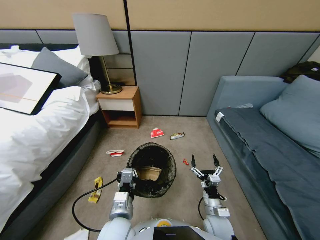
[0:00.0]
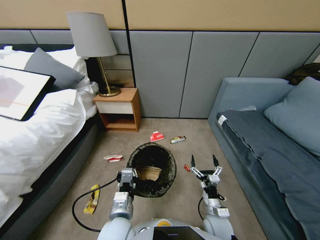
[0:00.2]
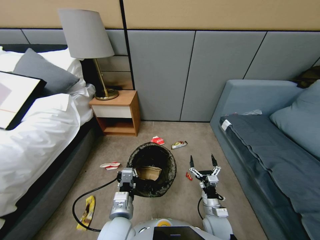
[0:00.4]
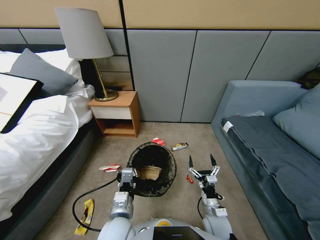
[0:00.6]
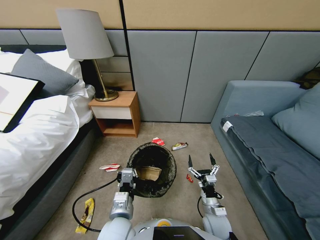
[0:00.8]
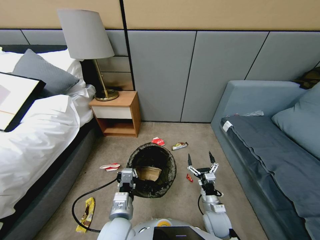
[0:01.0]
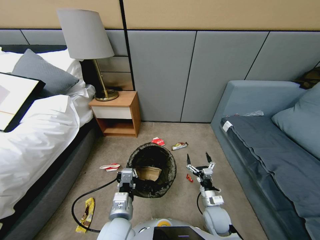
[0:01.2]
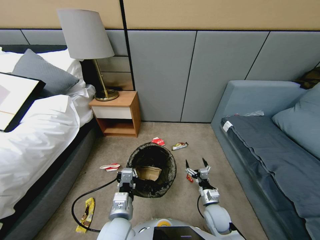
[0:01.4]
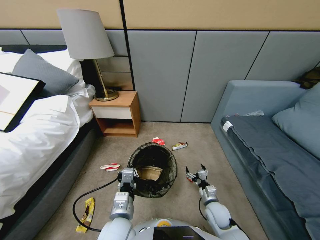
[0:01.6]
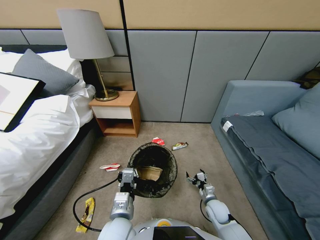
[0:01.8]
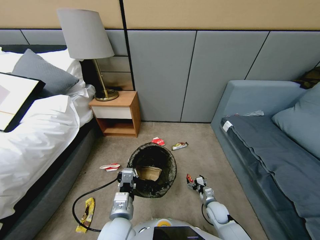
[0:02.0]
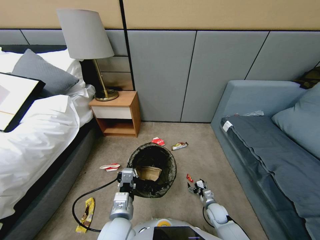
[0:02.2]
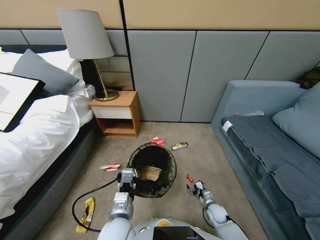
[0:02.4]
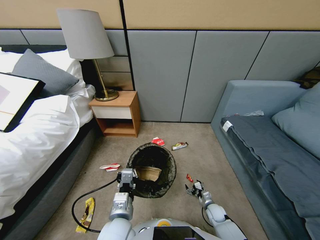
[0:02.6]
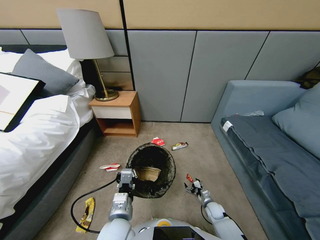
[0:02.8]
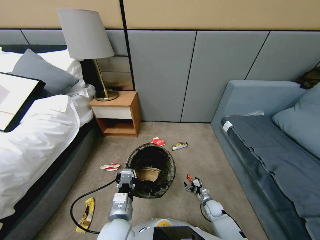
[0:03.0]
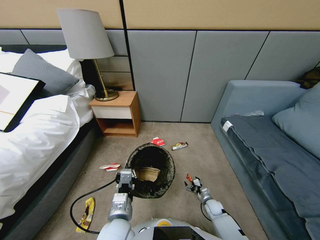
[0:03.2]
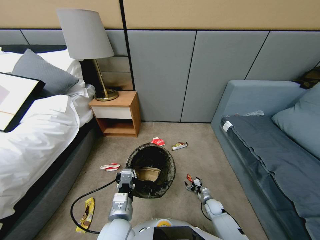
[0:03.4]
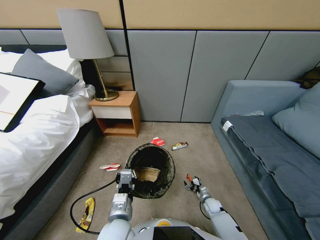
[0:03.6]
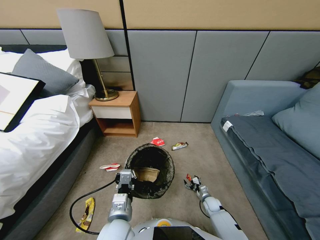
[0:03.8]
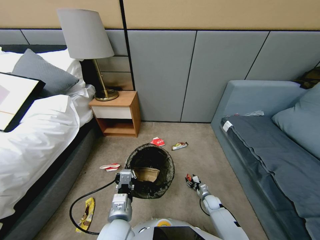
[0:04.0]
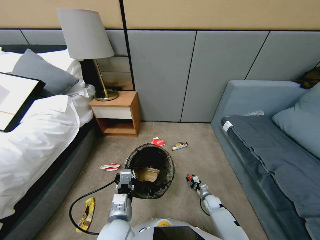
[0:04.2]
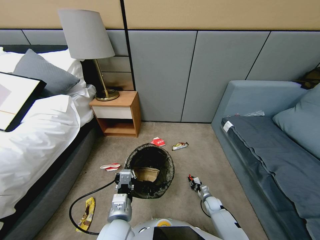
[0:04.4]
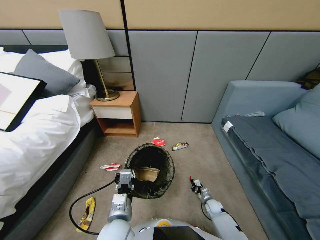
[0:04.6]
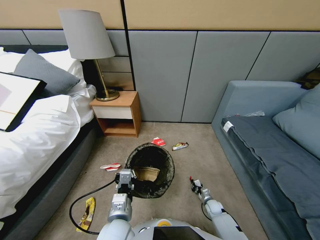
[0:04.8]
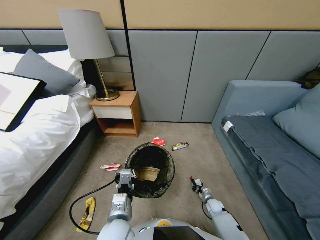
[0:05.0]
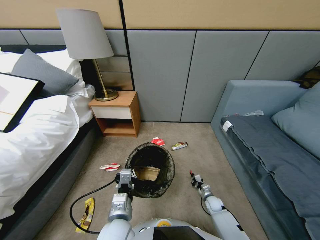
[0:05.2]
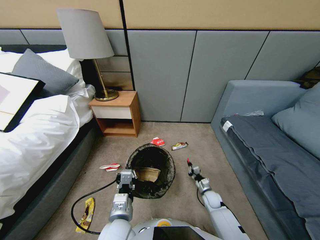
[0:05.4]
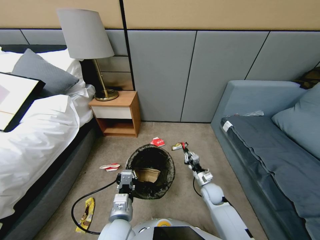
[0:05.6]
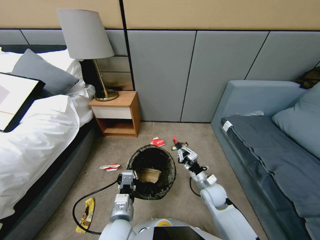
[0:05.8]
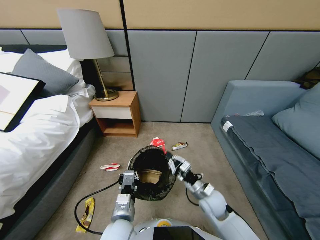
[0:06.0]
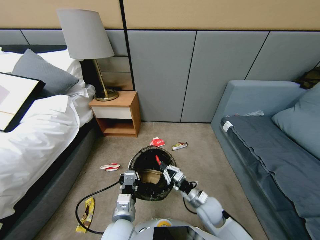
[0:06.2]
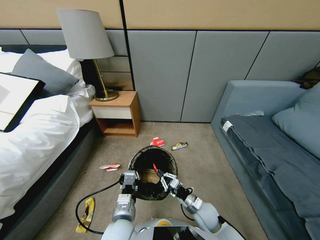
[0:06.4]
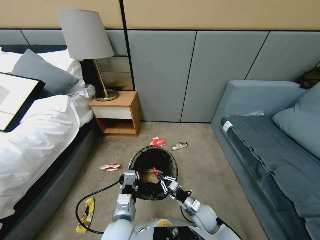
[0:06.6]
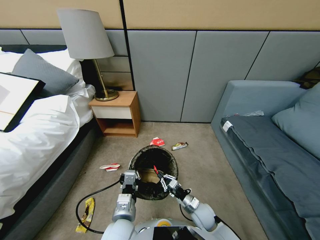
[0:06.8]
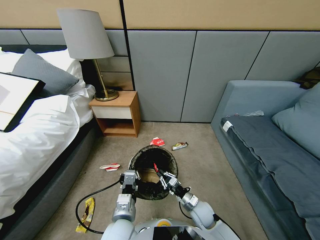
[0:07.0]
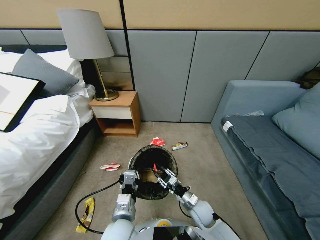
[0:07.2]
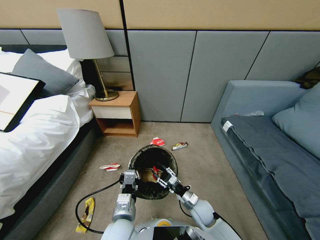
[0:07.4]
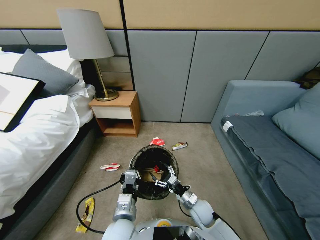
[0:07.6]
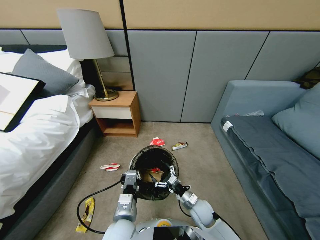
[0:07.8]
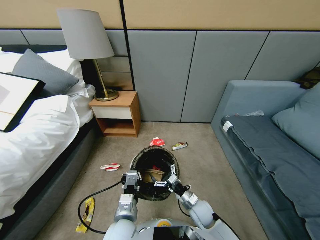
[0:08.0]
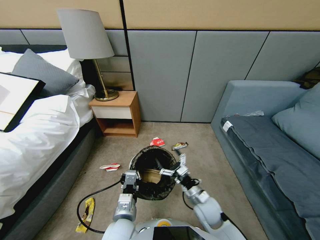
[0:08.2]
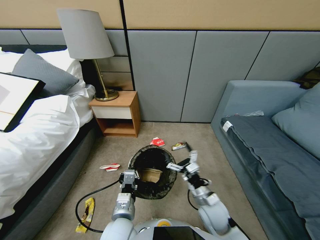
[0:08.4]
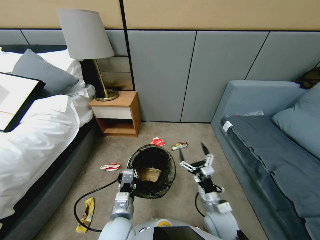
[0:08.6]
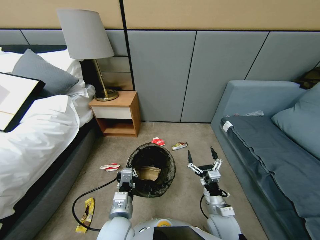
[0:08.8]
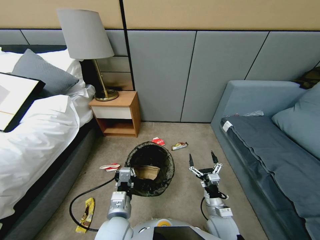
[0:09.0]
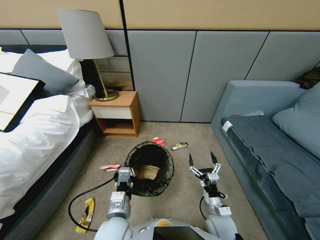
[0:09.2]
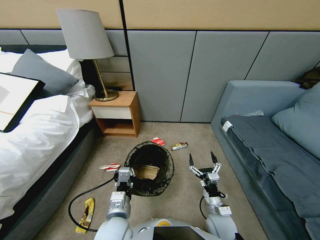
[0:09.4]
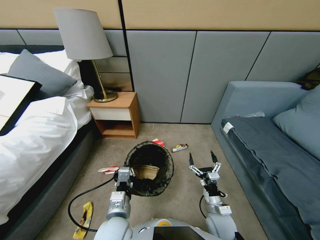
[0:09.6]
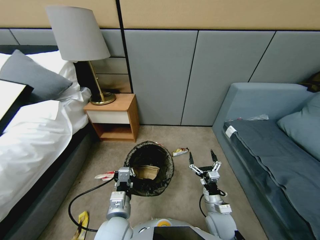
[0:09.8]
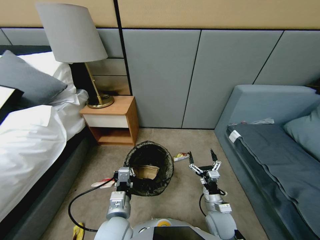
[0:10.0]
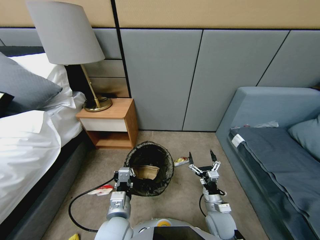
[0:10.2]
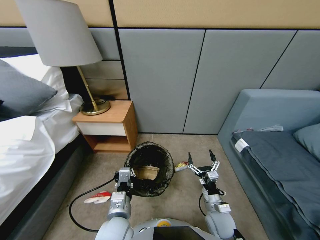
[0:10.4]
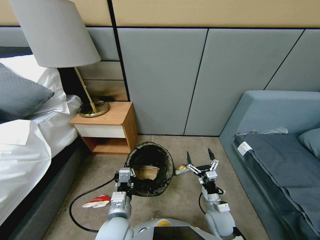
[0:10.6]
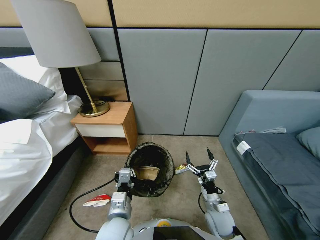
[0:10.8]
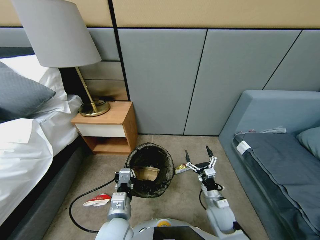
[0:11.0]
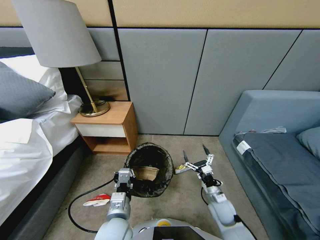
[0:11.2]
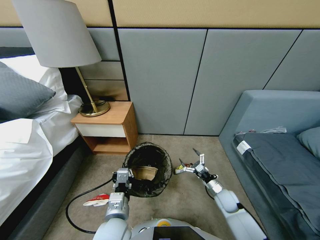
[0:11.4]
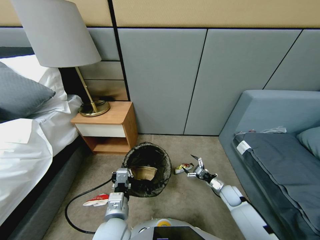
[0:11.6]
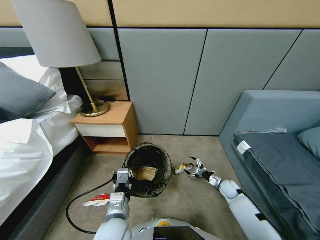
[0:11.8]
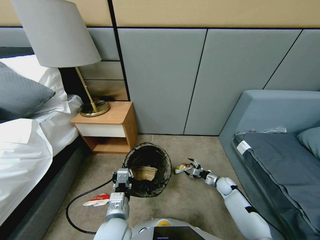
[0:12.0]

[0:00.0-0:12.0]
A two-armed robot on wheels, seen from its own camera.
Task of the whole recording: Pick up the trash bin, then pick up the garbage from the floor and place it into the trash bin.
0:00.0 to 0:01.6: The right gripper shifts about 10 cm forward and downward.
0:01.6 to 0:03.0: The right gripper travels downward by approximately 15 cm.
0:03.0 to 0:04.4: The right gripper closes its fingers.
0:04.4 to 0:06.0: The right gripper is displaced upward and to the left by roughly 30 cm.
0:06.0 to 0:07.6: The right gripper travels downward by about 5 cm, and opens.
0:07.6 to 0:09.0: The right gripper moves backward, about 5 cm.
0:10.4 to 0:12.0: The right gripper shifts roughly 25 cm forward, to the right and downward.

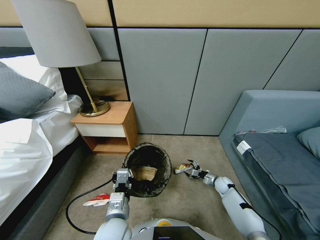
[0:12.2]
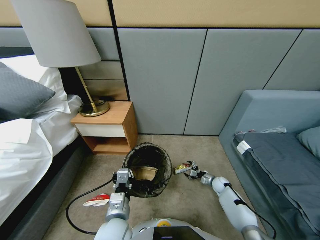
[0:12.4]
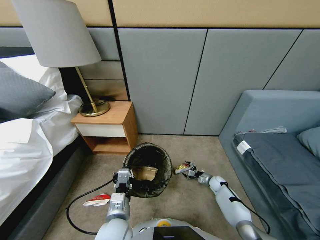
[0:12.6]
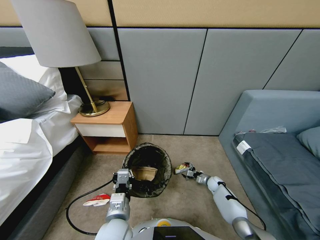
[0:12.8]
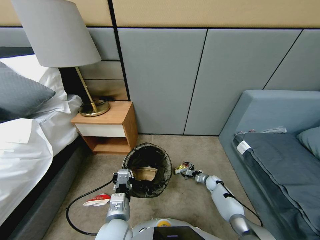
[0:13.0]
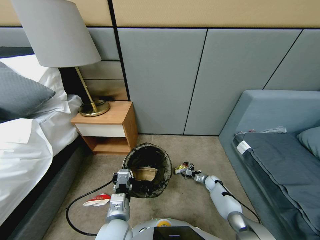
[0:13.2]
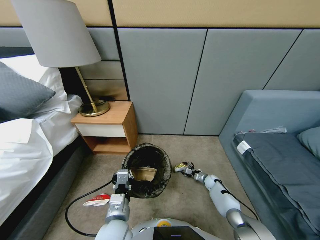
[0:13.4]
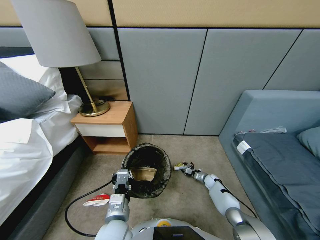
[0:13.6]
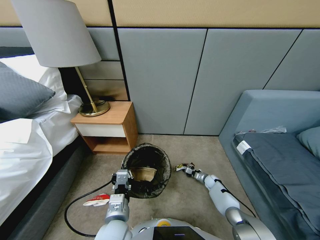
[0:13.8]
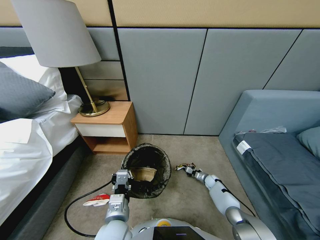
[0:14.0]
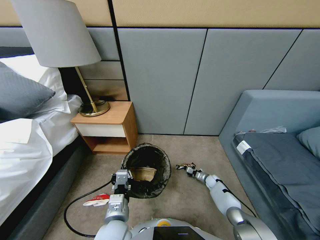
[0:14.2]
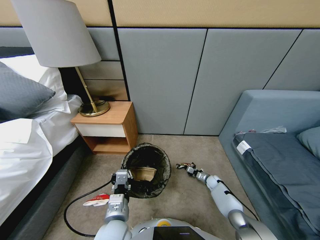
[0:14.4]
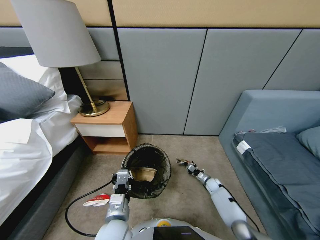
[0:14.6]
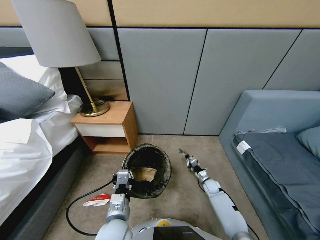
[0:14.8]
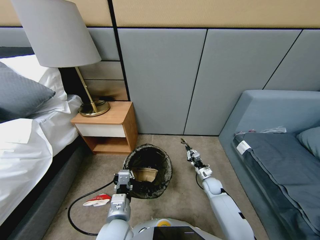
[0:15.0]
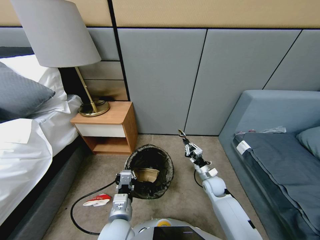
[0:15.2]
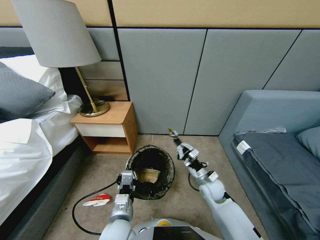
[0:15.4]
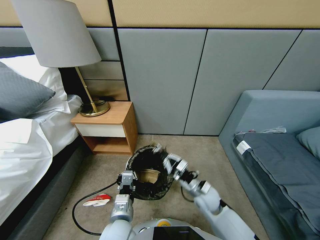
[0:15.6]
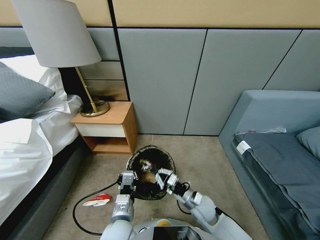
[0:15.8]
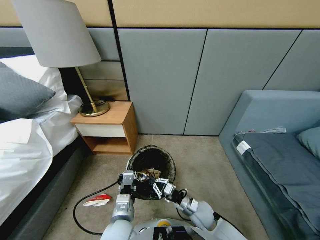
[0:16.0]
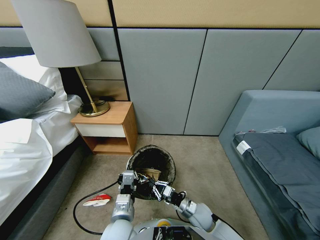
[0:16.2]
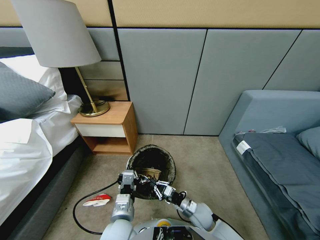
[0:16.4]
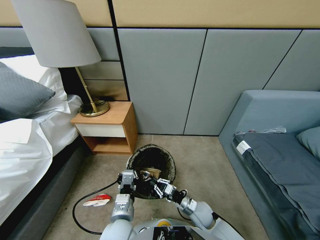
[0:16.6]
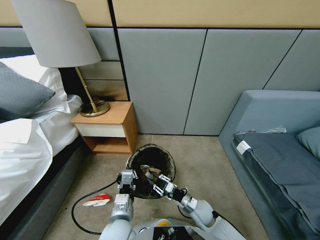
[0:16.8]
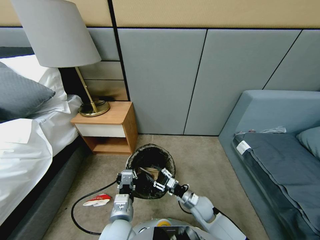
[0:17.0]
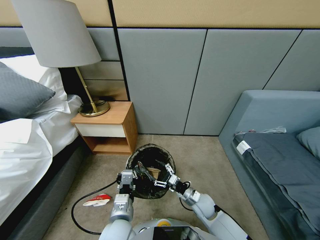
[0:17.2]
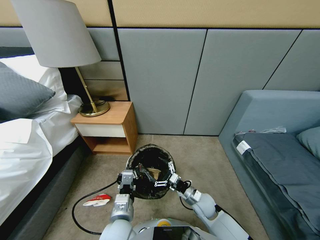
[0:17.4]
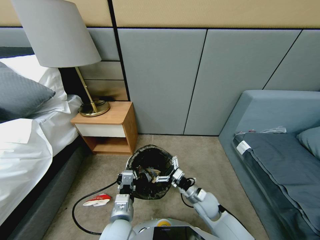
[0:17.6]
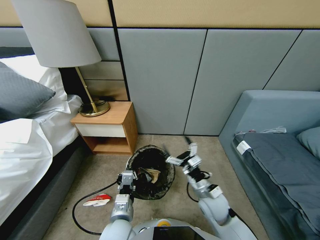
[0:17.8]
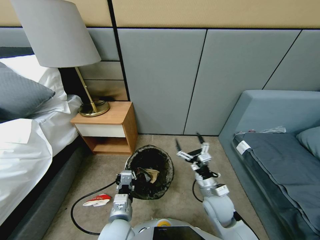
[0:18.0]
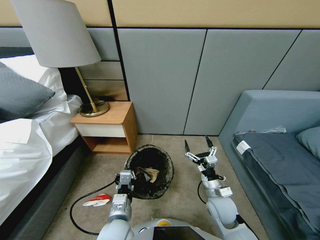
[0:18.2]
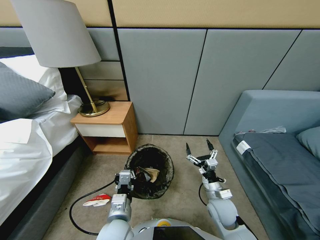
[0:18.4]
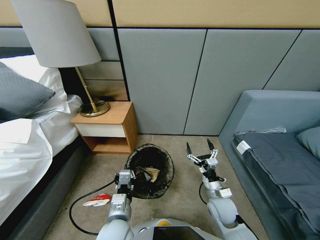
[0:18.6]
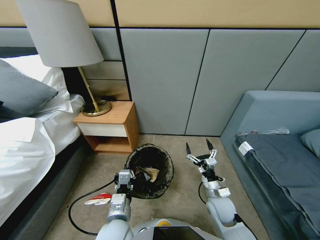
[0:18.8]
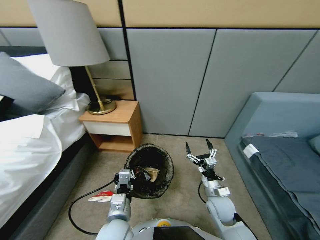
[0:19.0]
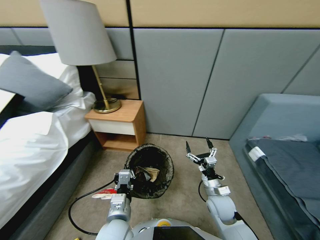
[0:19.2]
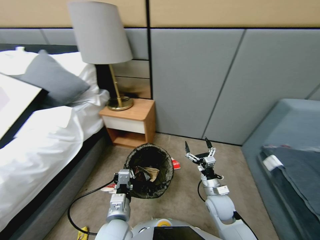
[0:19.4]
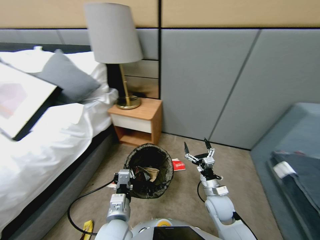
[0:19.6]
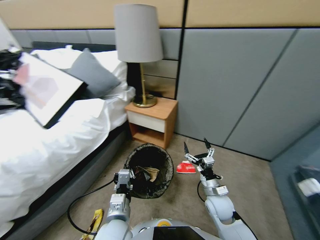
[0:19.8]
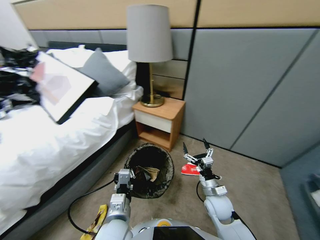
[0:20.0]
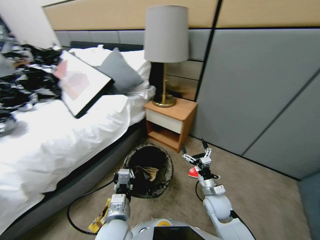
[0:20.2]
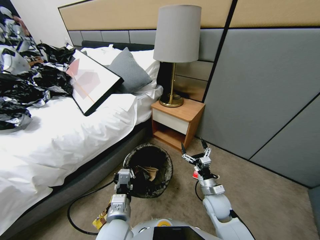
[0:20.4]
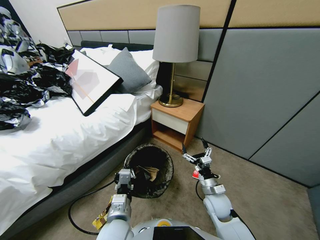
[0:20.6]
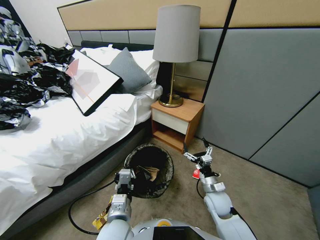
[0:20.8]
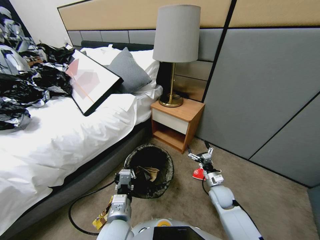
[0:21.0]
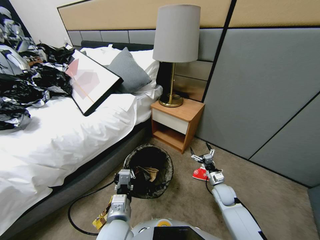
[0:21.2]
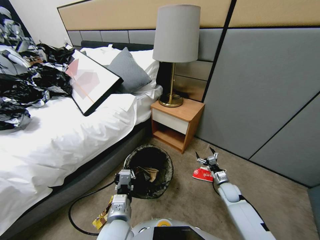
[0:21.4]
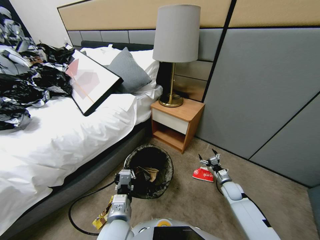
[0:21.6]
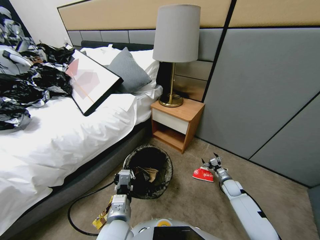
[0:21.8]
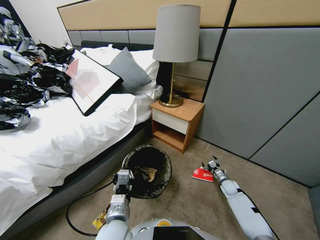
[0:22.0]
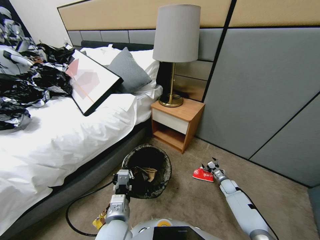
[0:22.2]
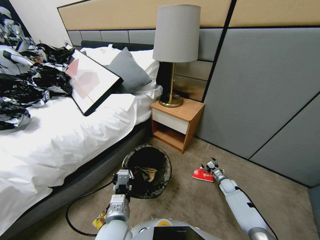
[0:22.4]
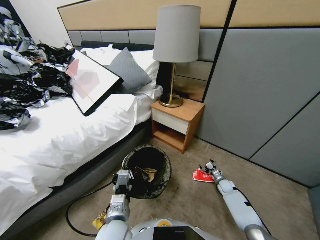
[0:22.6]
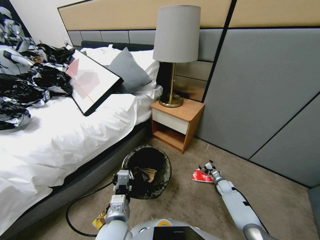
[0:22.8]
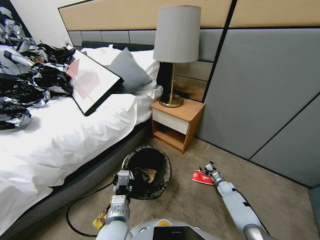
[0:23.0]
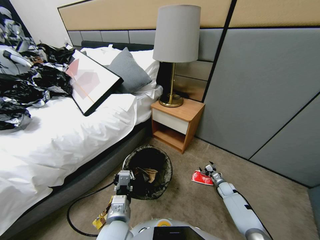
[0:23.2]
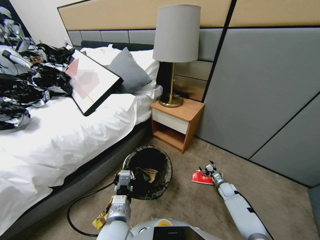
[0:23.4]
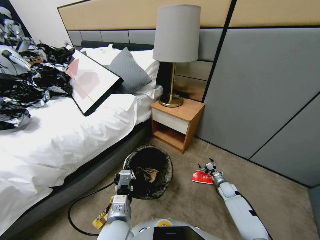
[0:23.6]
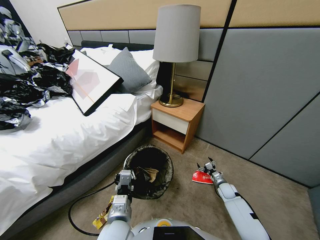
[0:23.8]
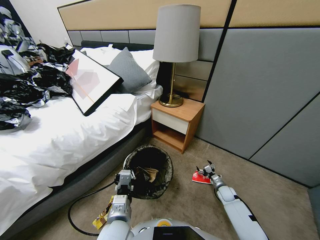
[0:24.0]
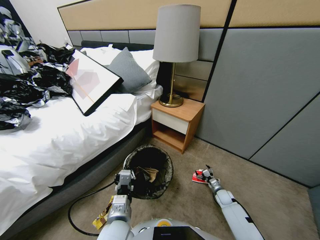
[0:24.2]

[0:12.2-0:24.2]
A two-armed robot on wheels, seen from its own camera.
Task of the whole recording: Pick up the trash bin, then pick up the garbage from the floor and place it into the trash bin.
0:12.2 to 0:13.8: The right gripper travels downward by roughly 5 cm, and closes up.
0:13.8 to 0:15.2: The right gripper shifts some 30 cm upward, to the left and backward.
0:15.2 to 0:16.6: The right gripper moves downward, backward and to the left, approximately 15 cm.
0:16.6 to 0:18.2: The right gripper shifts some 10 cm upward, and opens.
0:19.8 to 0:21.2: The right gripper heads to the right, downward and forward, covering some 15 cm.
0:21.2 to 0:22.6: The right gripper goes about 15 cm downward, to the right and forward.
0:22.6 to 0:24.2: The right gripper goes approximately 5 cm backward.
